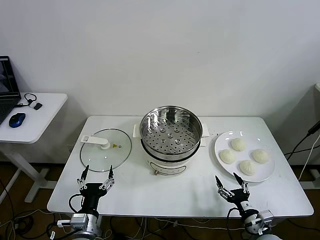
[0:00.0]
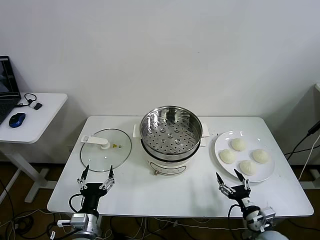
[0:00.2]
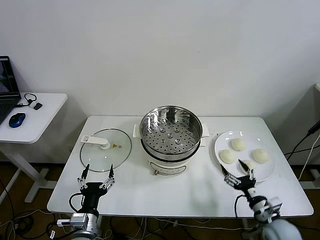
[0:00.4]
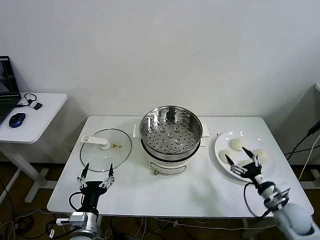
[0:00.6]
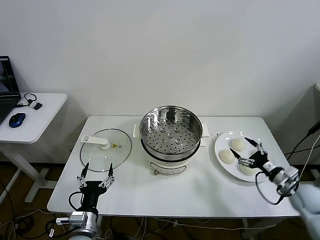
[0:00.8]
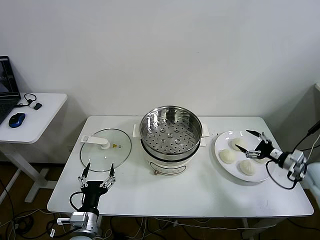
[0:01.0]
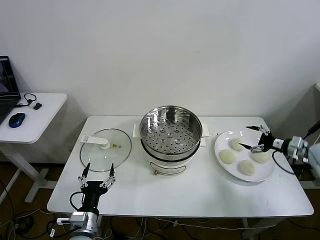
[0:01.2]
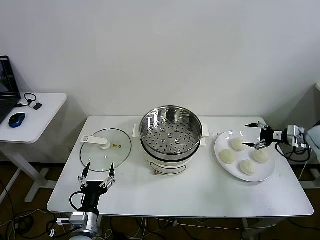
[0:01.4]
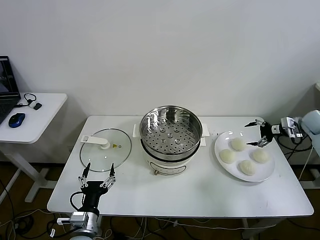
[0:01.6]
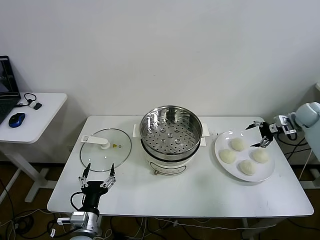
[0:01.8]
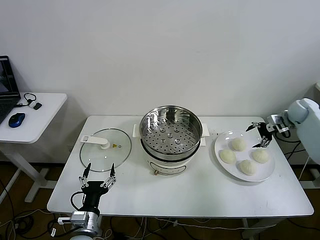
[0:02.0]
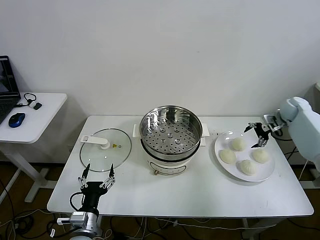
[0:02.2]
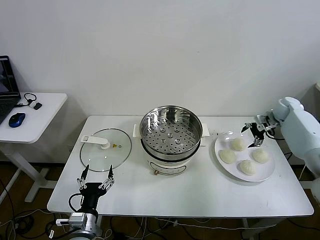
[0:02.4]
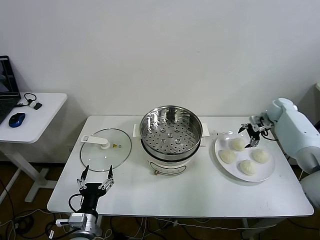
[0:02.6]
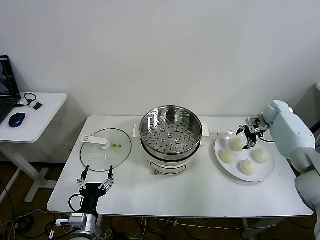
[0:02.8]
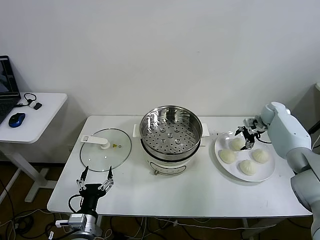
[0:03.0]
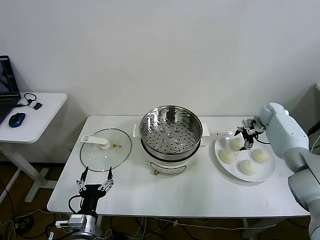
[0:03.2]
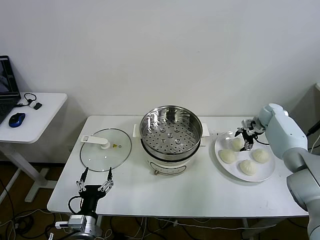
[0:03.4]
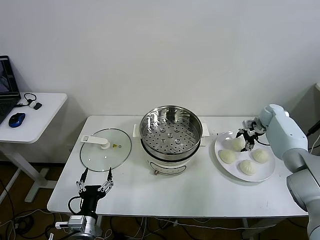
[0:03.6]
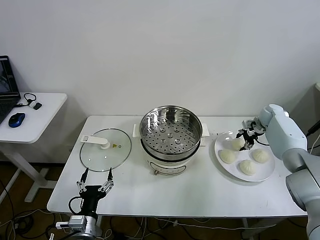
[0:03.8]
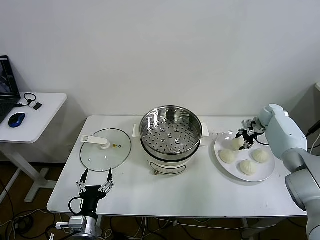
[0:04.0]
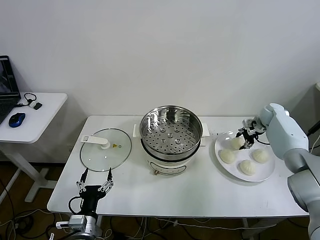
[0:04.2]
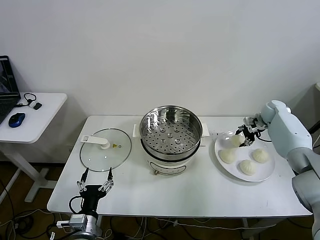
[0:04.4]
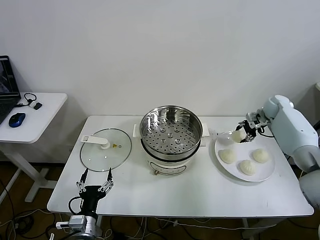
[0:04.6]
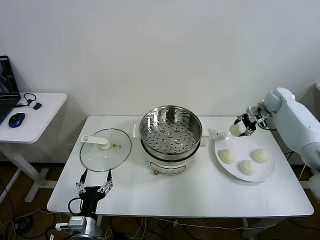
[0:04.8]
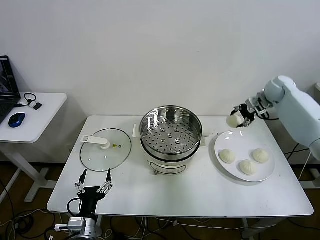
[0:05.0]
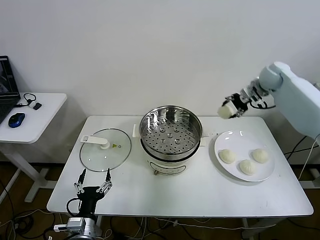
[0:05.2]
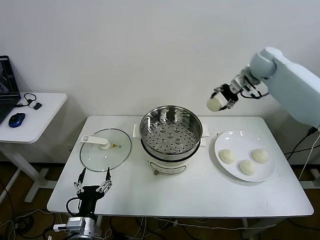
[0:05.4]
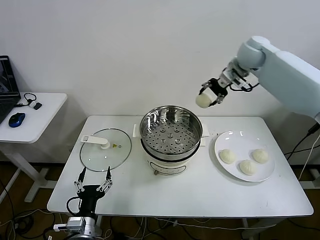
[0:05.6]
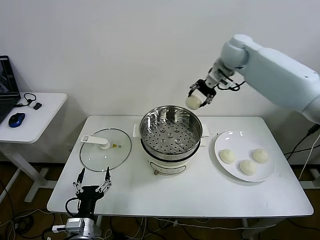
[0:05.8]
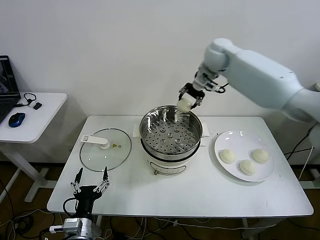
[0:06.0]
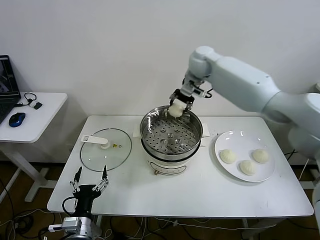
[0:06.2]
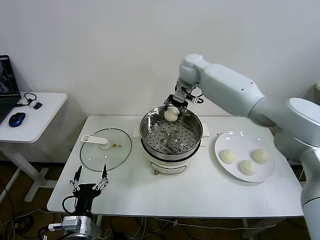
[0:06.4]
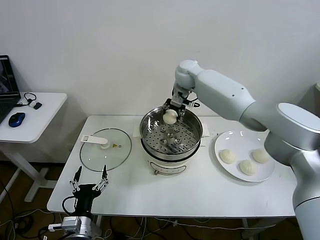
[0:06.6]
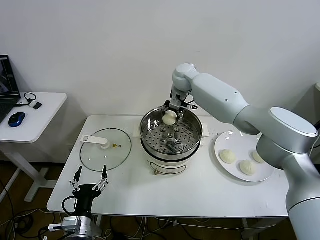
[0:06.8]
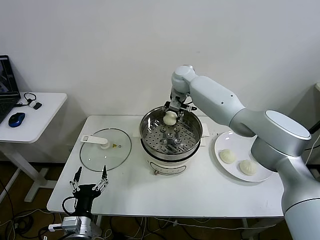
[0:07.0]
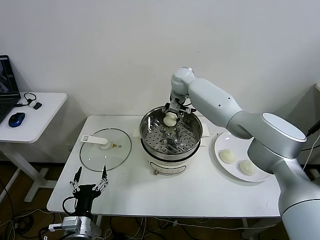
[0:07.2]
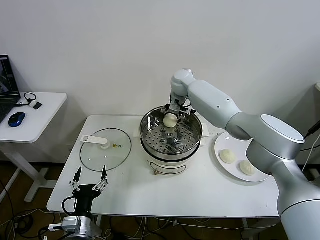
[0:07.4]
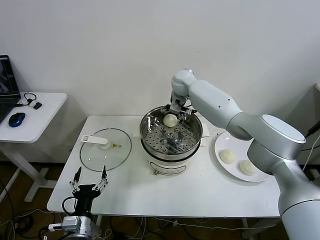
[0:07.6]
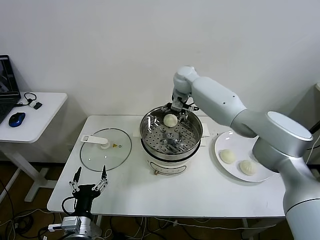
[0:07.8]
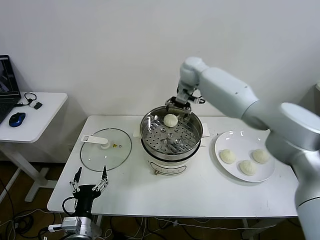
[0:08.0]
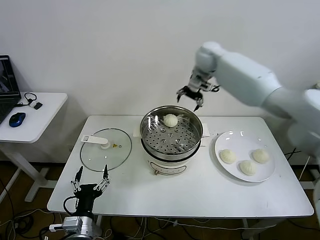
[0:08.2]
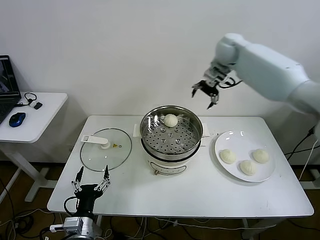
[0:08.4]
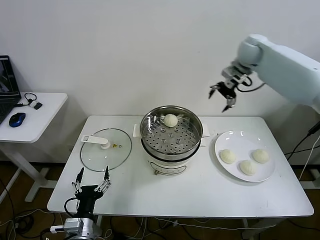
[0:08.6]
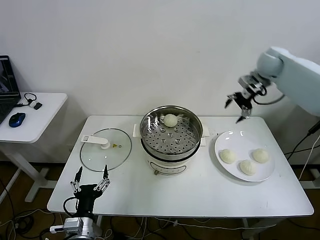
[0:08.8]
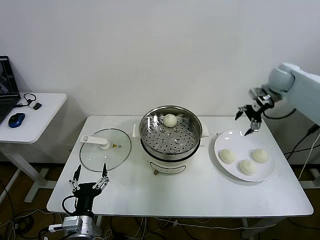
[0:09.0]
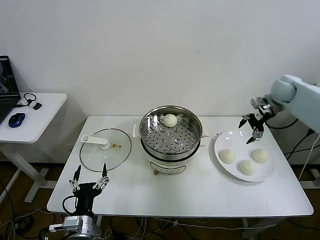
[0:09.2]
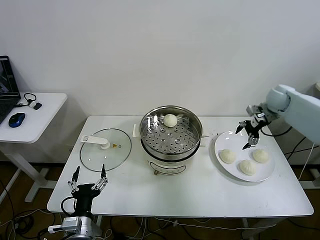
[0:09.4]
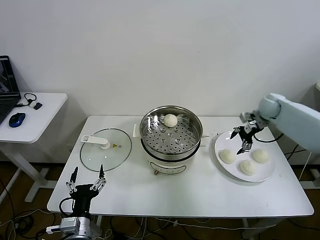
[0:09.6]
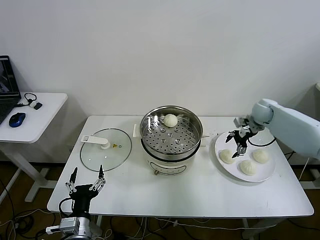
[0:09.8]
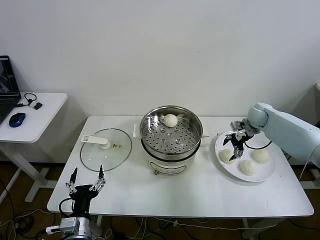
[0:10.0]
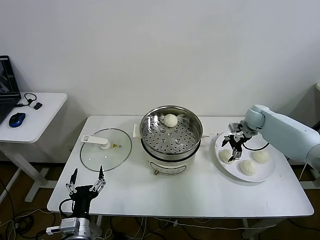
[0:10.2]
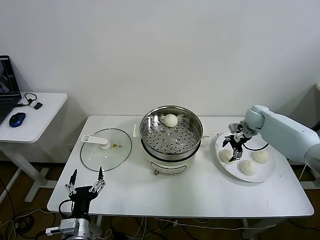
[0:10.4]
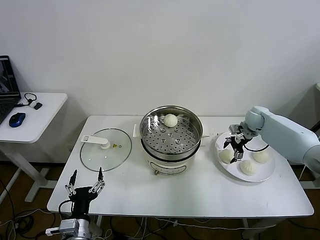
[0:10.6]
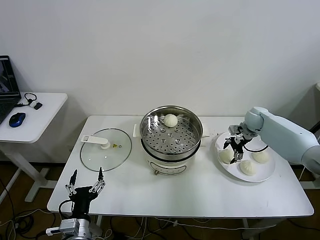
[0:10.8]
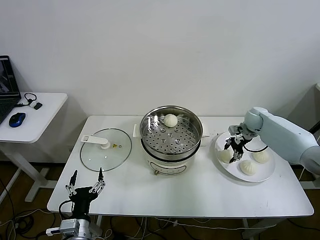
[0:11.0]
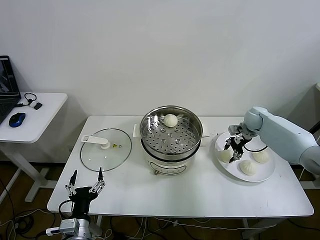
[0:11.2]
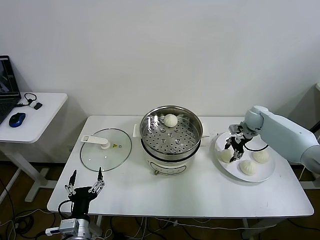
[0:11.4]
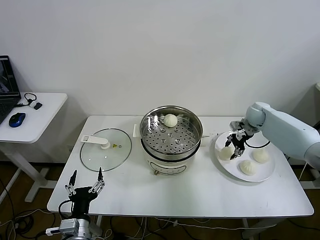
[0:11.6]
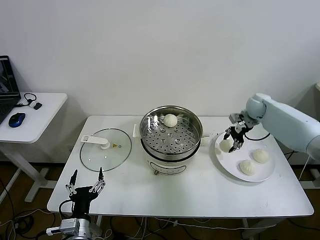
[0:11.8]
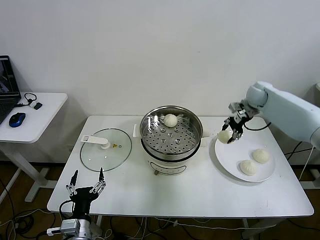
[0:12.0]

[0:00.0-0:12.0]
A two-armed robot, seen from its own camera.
Step, 0:00.0 to 0:04.0: Grasp the baozi in the plate with right gripper.
Step, 0:04.2 to 0:08.0: Place the baozi on the steamer with right gripper.
Step, 0:08.4 to 0:11.4: Grasp the baozi in the plate with right gripper.
0:01.6 to 0:03.0: The right gripper travels to the left, forward and downward by approximately 15 cm.
0:03.0 to 0:04.4: The right gripper closes up.
0:04.4 to 0:06.0: The right gripper shifts approximately 40 cm to the left and upward.
0:06.0 to 0:07.6: The right gripper moves downward and to the left, some 10 cm, and opens.
0:07.6 to 0:09.0: The right gripper moves to the right, about 35 cm.
0:09.0 to 0:10.4: The right gripper is displaced downward by some 15 cm.
0:10.4 to 0:12.0: The right gripper goes some 10 cm upward, and closes up.

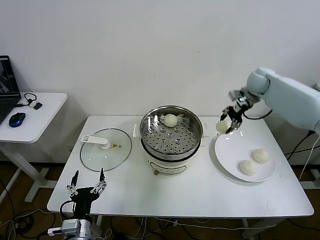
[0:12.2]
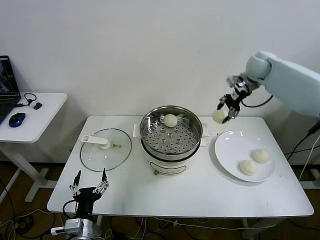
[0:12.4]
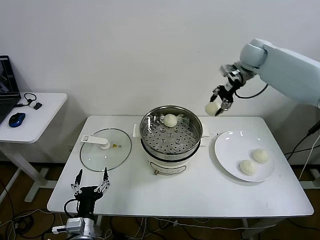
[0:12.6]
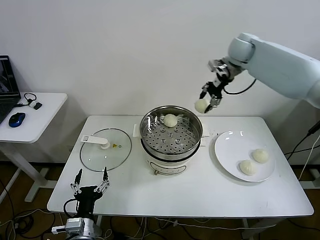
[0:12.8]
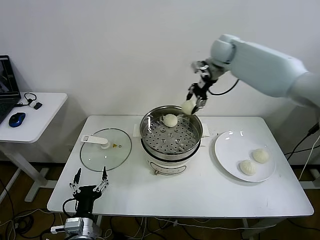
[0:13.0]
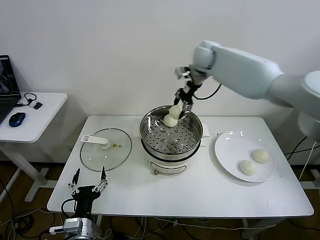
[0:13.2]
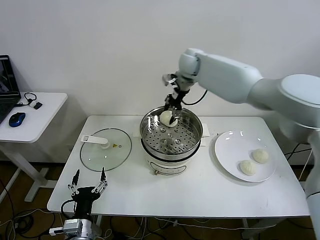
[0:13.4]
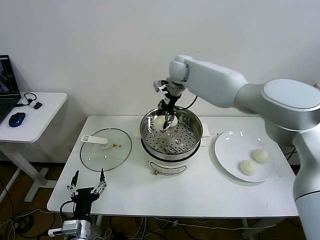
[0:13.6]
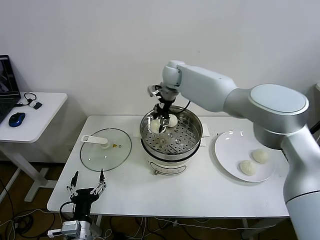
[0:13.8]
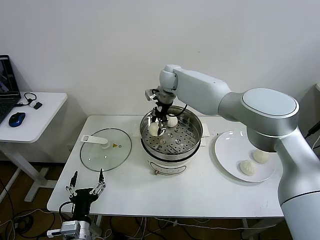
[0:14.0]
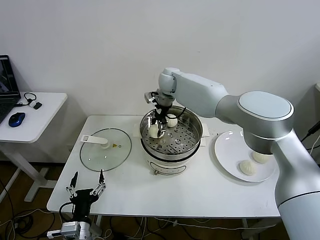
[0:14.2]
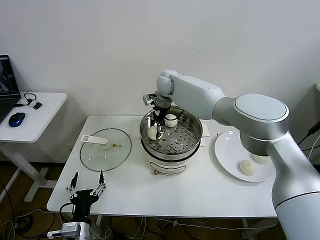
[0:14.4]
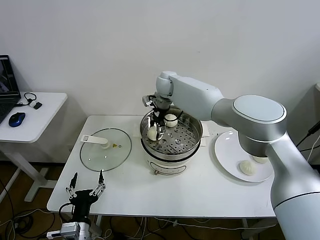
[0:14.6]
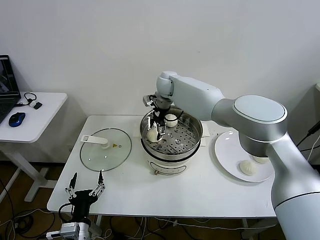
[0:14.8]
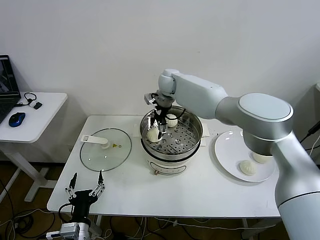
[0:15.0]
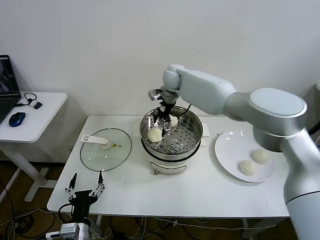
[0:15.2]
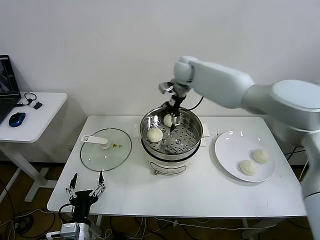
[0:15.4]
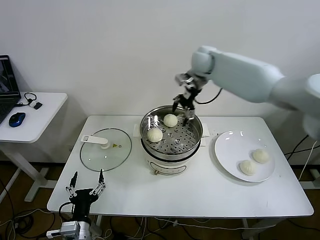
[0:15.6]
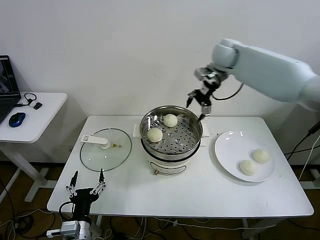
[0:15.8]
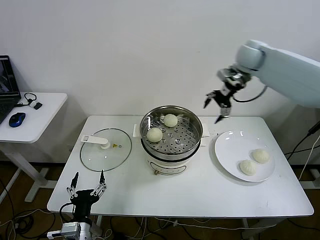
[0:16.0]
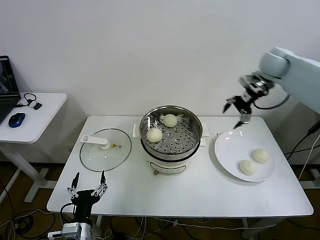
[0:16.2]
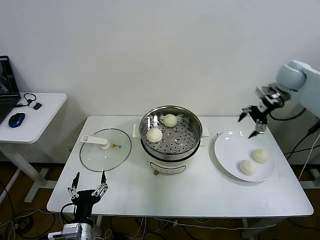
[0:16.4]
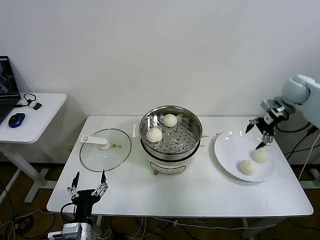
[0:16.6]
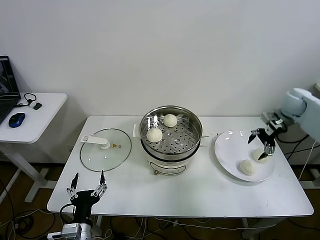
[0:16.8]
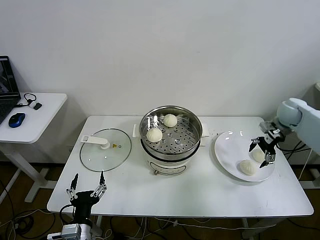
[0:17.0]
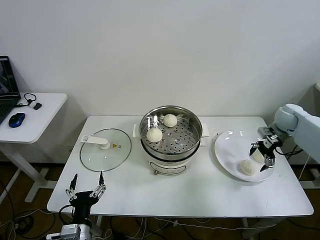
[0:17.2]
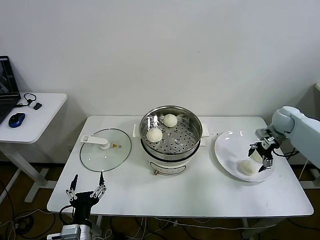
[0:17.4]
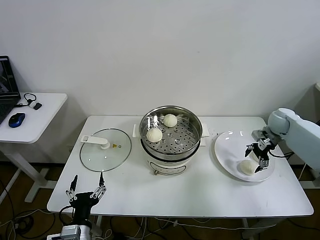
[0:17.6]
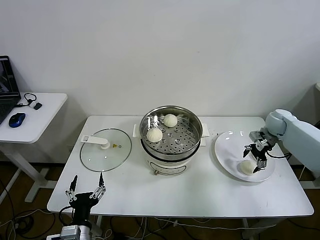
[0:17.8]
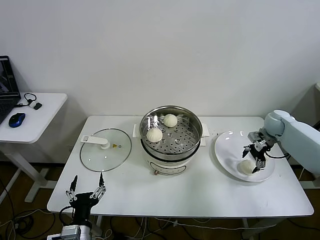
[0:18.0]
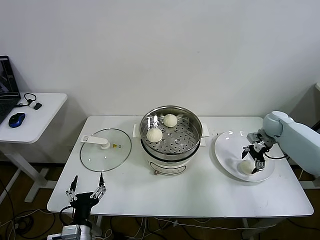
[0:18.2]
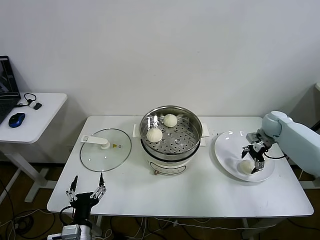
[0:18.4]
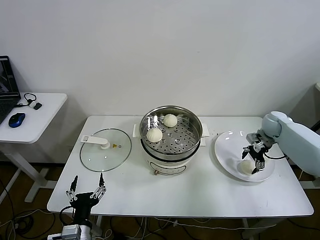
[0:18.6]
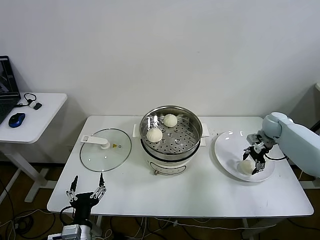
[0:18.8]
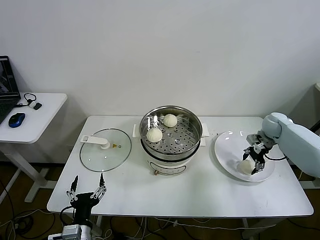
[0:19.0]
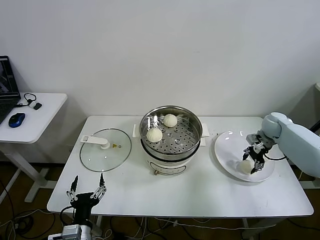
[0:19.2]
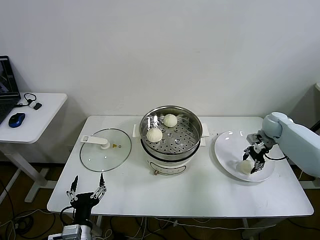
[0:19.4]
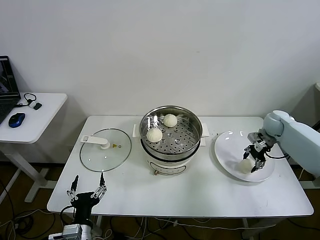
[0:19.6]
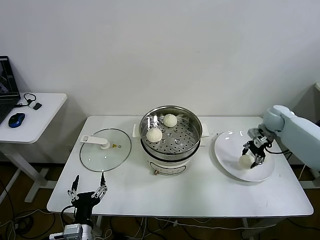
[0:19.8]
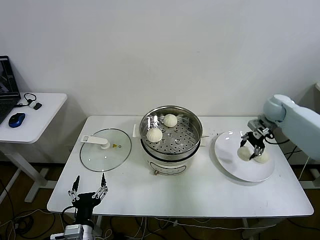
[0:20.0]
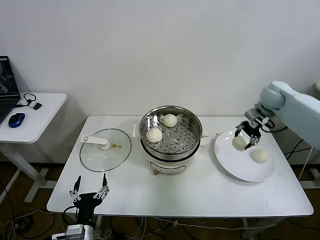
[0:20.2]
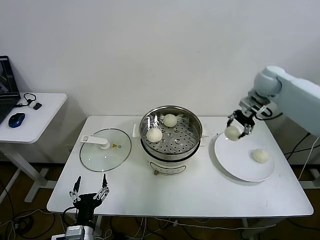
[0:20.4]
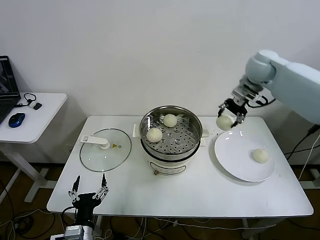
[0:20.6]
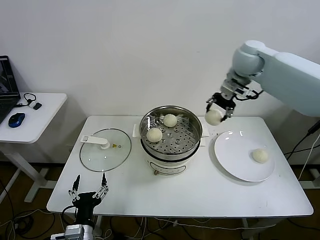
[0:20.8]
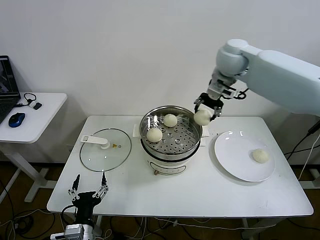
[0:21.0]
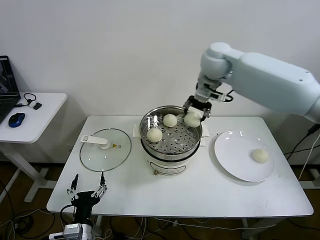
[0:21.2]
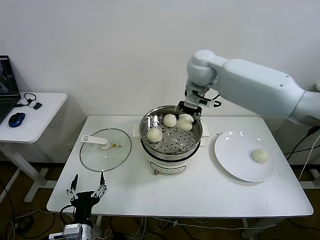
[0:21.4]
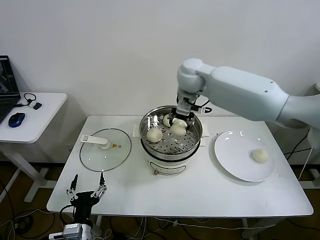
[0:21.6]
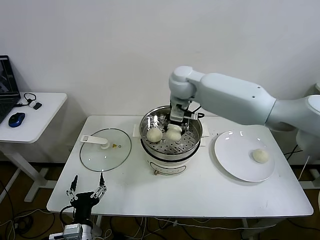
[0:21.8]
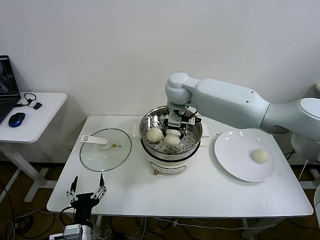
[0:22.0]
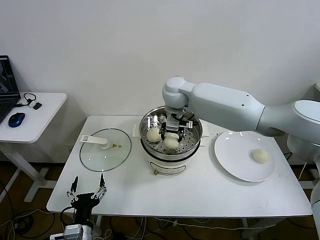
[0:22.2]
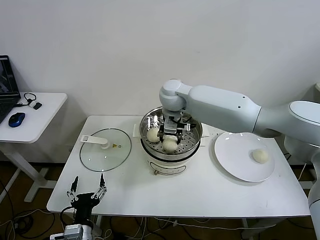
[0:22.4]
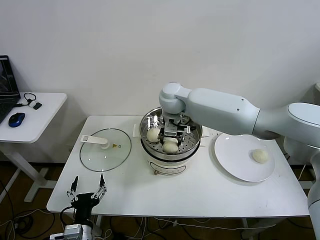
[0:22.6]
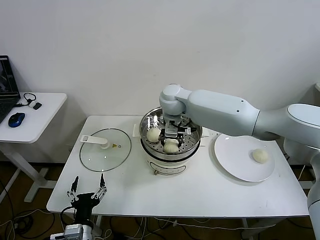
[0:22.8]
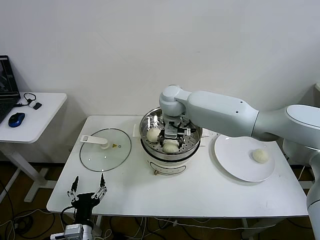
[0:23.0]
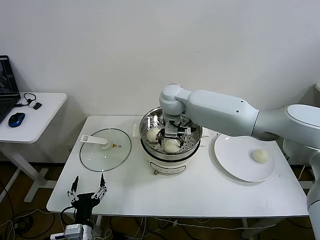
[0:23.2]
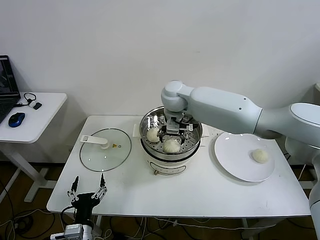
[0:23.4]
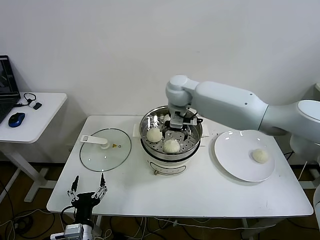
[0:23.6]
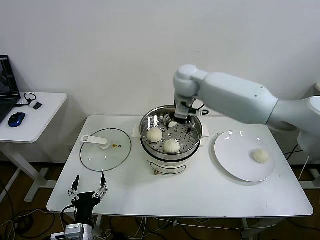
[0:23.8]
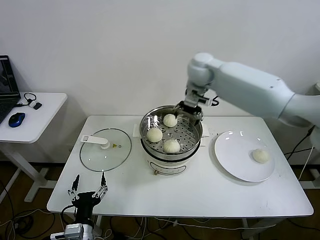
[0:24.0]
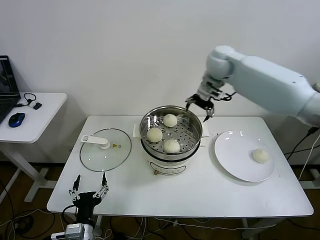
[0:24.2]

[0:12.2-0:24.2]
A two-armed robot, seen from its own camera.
Step, 0:12.2 to 0:15.2: Place the baozi on the steamer with right gripper.
Step, 0:15.4 to 0:19.4: Grasp the baozi in the plate with right gripper.
Step, 0:19.6 to 0:23.4: Place the baozi on the steamer with right gripper.
0:12.2 to 0:13.8: The right gripper goes roughly 30 cm to the left.
0:13.8 to 0:15.2: The right gripper opens its fingers.
0:15.2 to 0:16.6: The right gripper heads to the right, covering roughly 40 cm.
0:16.6 to 0:18.2: The right gripper moves downward, approximately 15 cm.
0:18.2 to 0:19.8: The right gripper closes its fingers.
0:19.8 to 0:21.2: The right gripper goes roughly 35 cm to the left and upward.
0:21.2 to 0:22.6: The right gripper shifts some 15 cm to the left and downward.
0:22.6 to 0:24.2: The right gripper shifts some 20 cm to the right and upward, and opens up.
